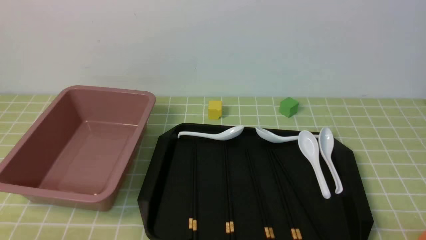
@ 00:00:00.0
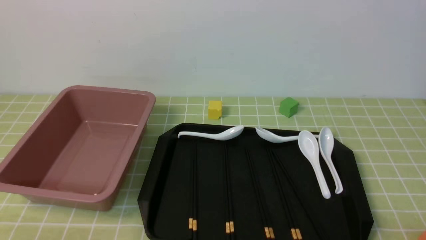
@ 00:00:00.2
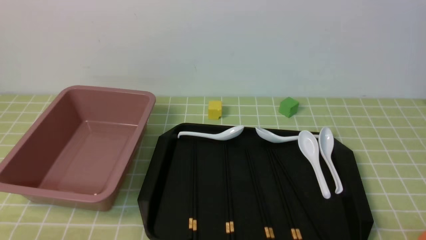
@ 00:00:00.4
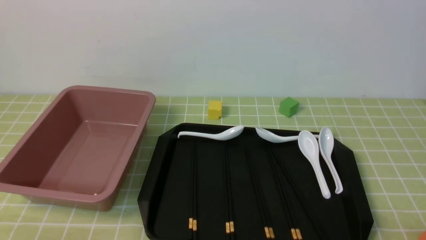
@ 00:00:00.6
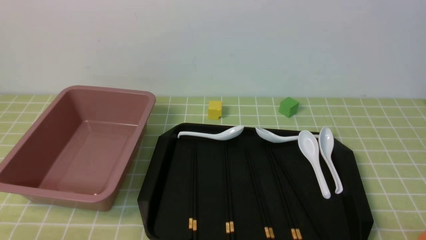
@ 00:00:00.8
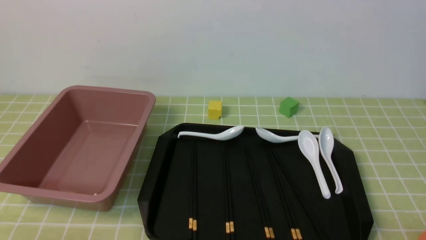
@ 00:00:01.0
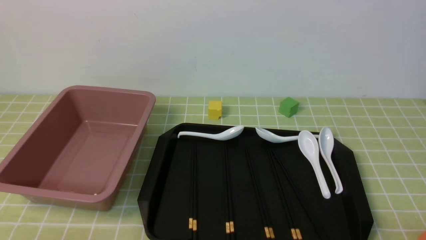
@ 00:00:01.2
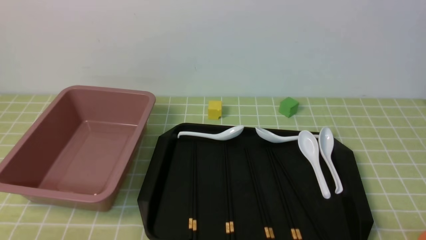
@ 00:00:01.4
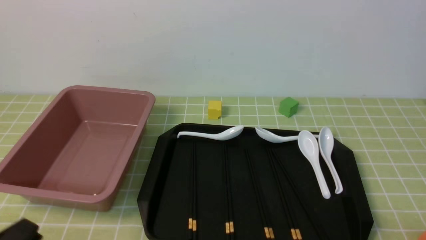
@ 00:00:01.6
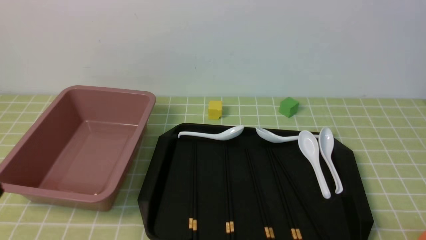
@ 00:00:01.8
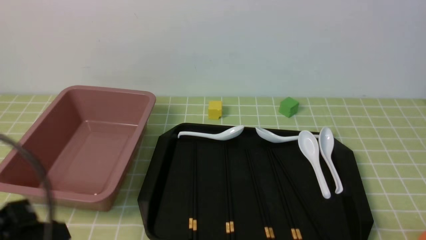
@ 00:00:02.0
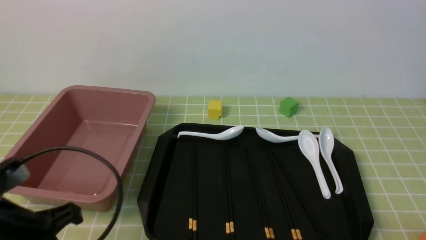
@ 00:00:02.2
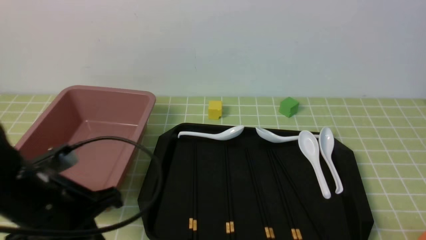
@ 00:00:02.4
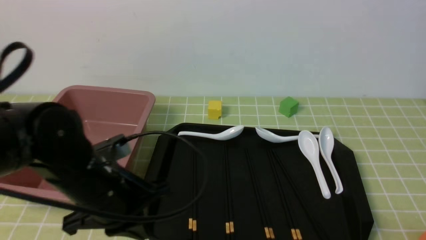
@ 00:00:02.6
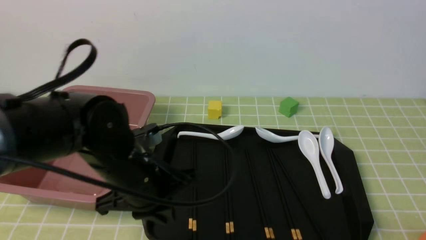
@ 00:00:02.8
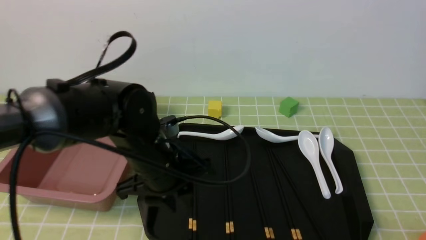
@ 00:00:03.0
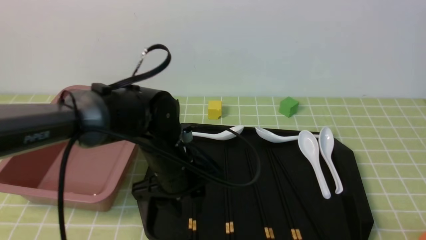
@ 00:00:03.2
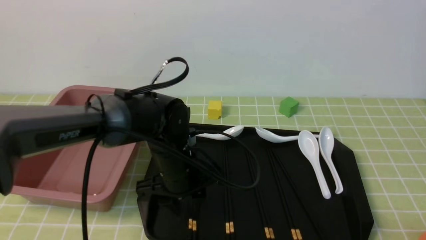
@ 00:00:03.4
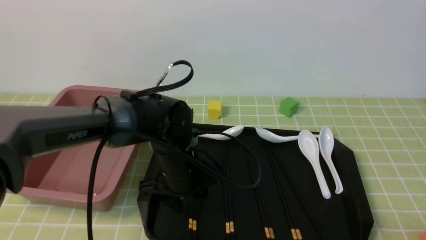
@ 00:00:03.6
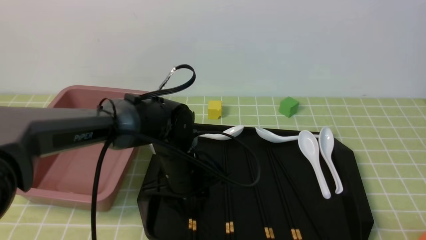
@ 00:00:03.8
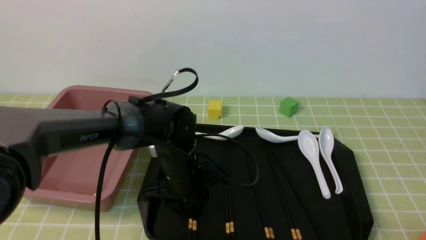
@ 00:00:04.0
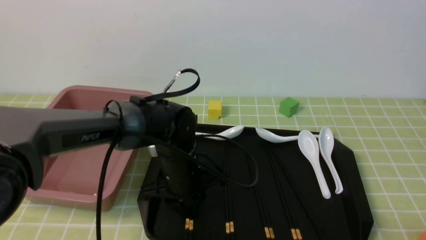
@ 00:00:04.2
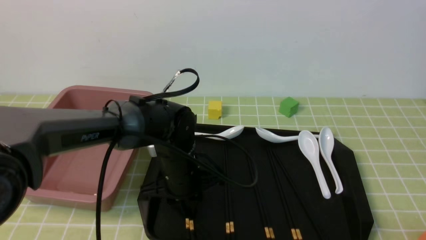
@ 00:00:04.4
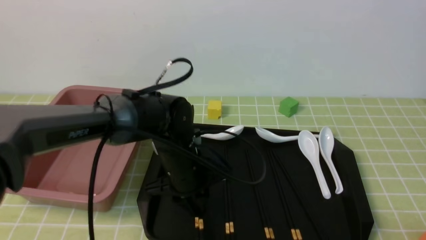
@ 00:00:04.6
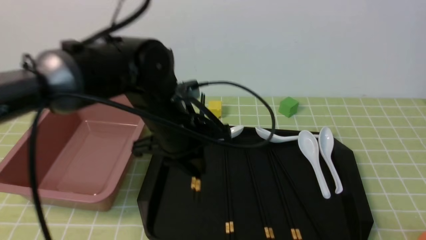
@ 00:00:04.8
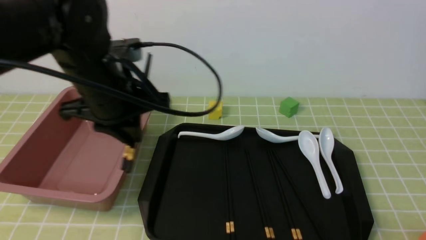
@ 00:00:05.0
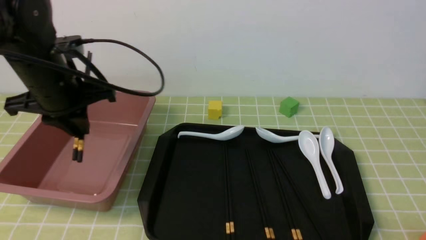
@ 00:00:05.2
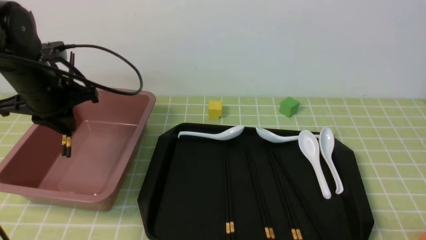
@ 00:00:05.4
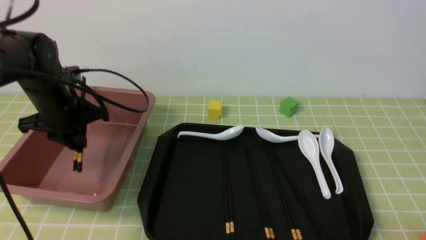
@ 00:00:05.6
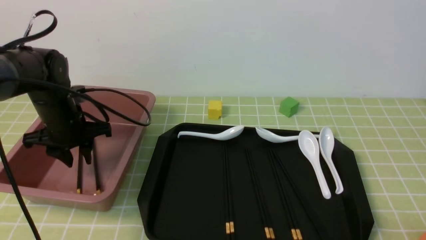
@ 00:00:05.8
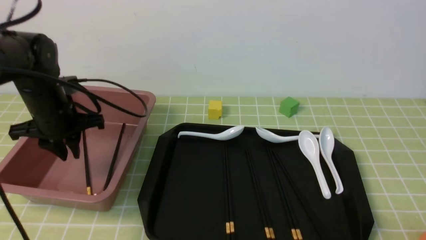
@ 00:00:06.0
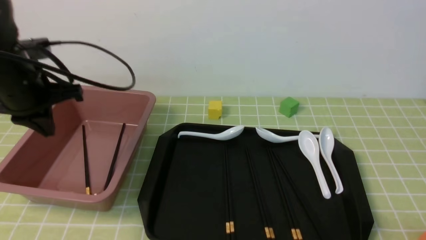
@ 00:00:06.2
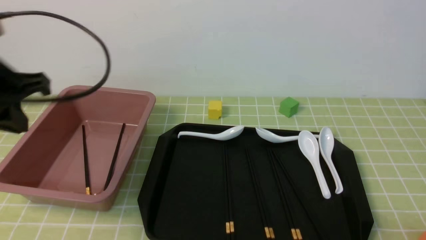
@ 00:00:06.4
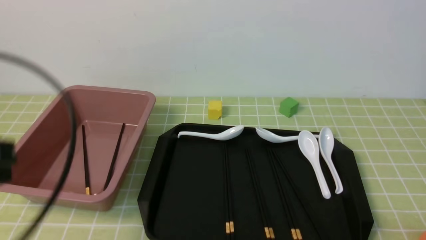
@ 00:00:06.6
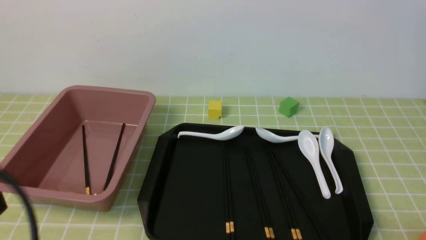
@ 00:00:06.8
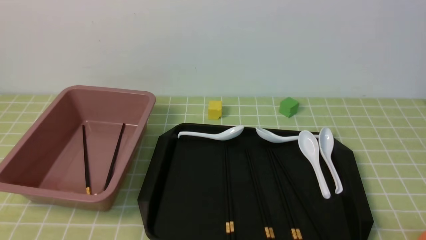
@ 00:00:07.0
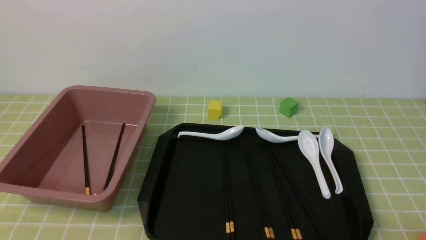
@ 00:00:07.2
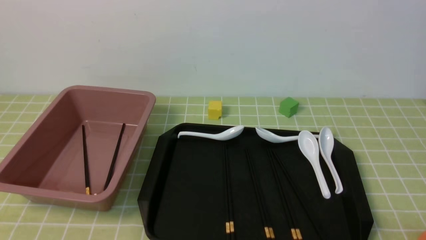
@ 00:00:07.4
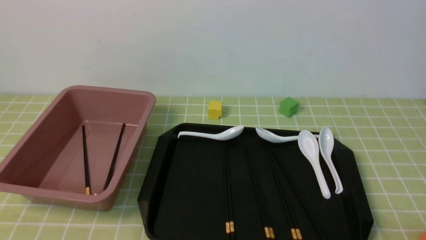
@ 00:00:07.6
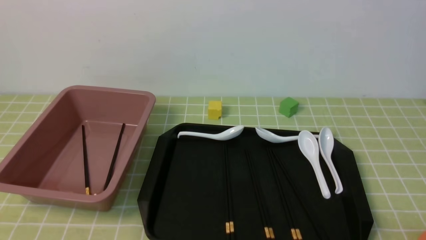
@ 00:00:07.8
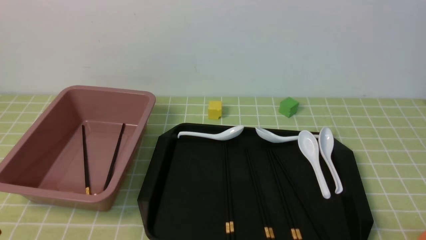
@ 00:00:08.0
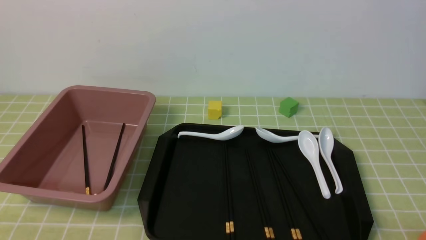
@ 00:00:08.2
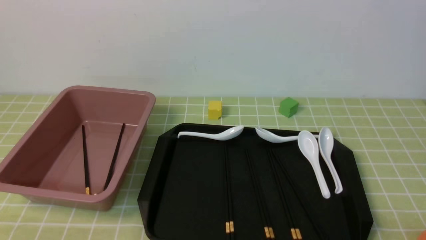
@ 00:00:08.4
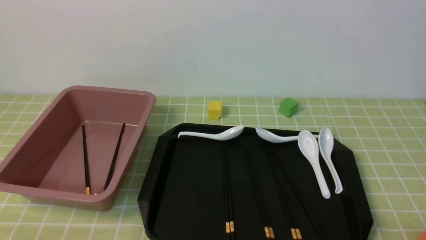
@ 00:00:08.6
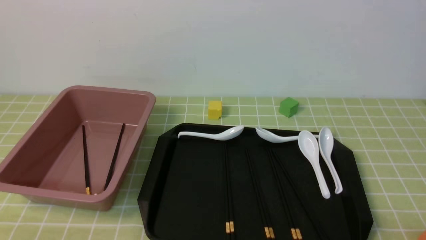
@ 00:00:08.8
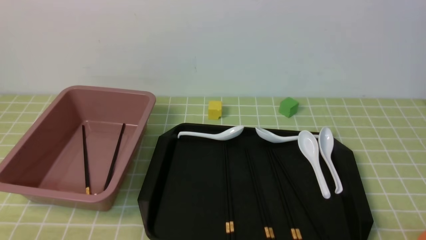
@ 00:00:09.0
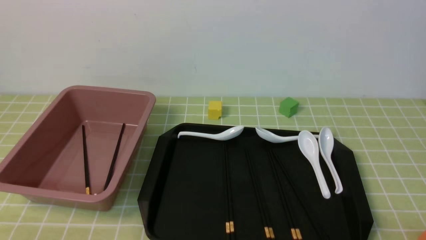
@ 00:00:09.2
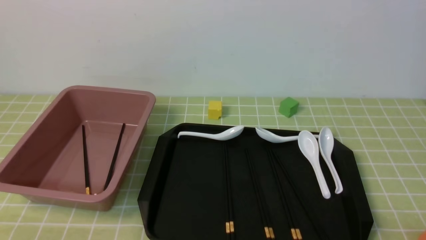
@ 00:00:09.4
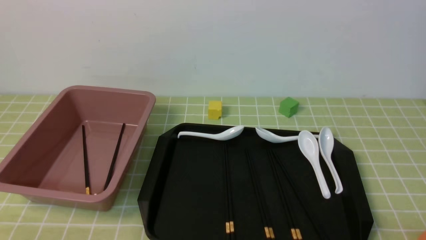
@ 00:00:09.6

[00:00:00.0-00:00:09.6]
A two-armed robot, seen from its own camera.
Step, 00:00:00.0 to 00:00:04.8: use the left arm to grab a pair of chopsticks.
Step, 00:00:05.0 to 00:00:06.0: use the left arm to put the chopsticks into the lunch box.
00:00:00.0 to 00:00:01.6: The left gripper is displaced upward by approximately 5 cm.
00:00:01.6 to 00:00:03.2: The left gripper heads forward and to the right, covering roughly 30 cm, and opens up.
00:00:03.2 to 00:00:04.8: The left gripper goes approximately 5 cm upward, and closes up.
00:00:04.8 to 00:00:06.4: The left gripper moves to the left, upward and backward, about 20 cm, and closes.
00:00:06.4 to 00:00:08.0: The left gripper travels backward and downward by about 20 cm.
